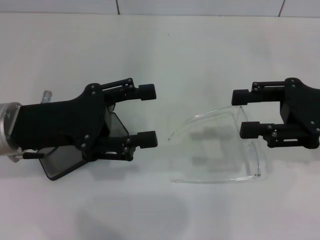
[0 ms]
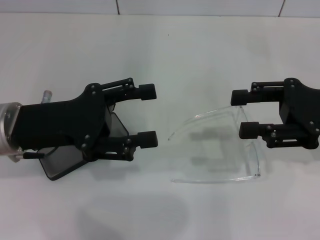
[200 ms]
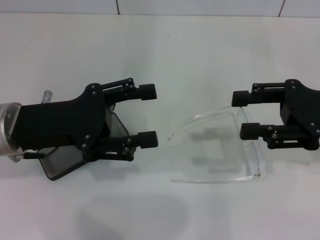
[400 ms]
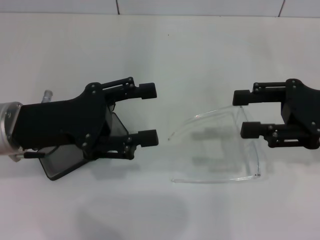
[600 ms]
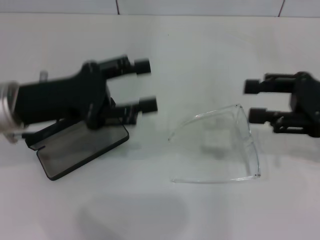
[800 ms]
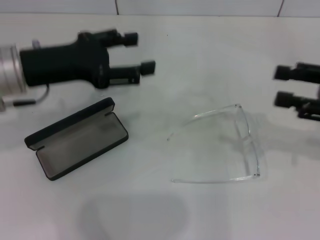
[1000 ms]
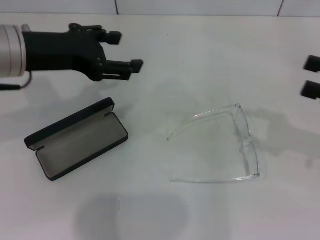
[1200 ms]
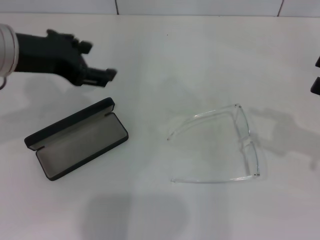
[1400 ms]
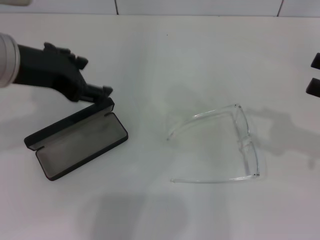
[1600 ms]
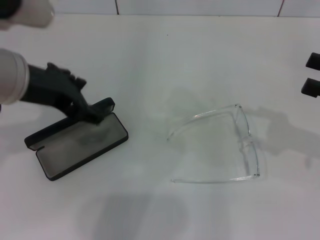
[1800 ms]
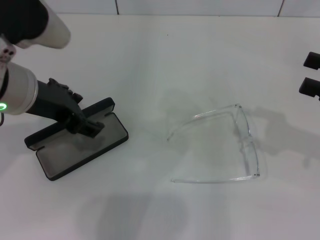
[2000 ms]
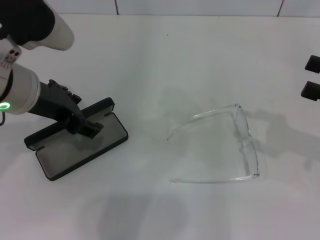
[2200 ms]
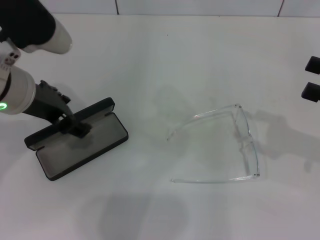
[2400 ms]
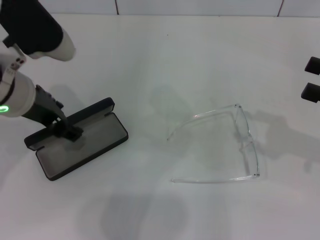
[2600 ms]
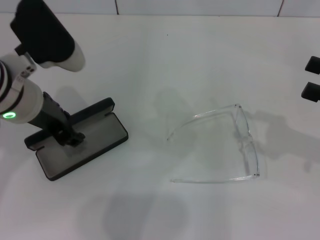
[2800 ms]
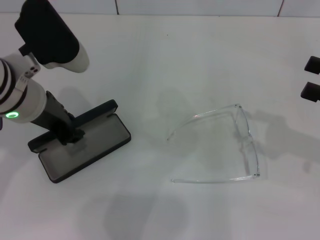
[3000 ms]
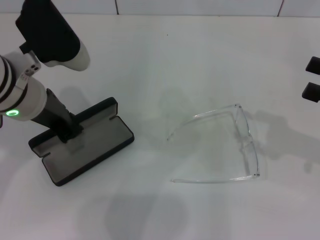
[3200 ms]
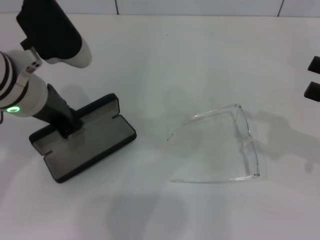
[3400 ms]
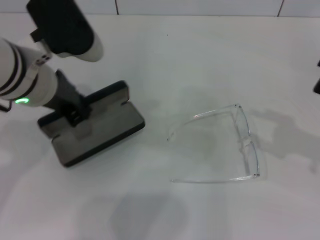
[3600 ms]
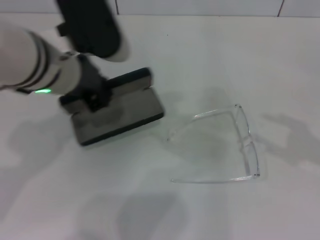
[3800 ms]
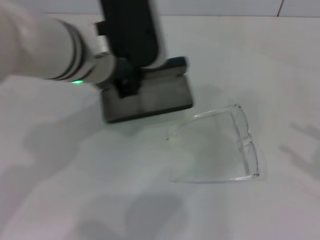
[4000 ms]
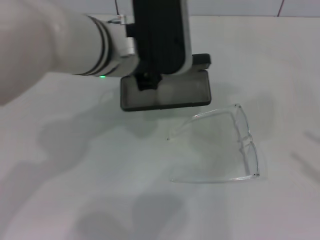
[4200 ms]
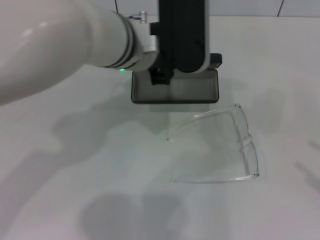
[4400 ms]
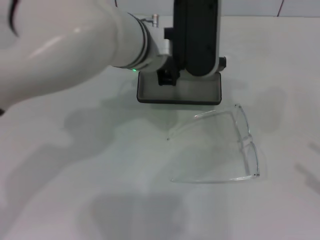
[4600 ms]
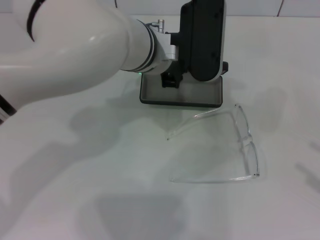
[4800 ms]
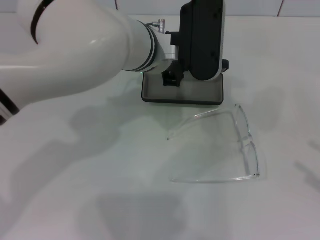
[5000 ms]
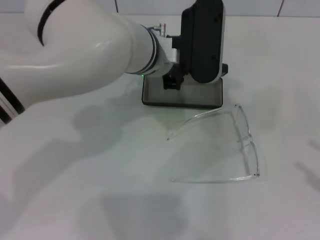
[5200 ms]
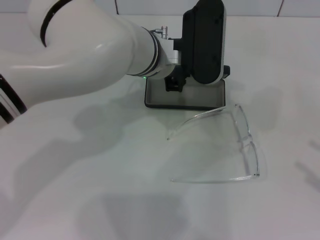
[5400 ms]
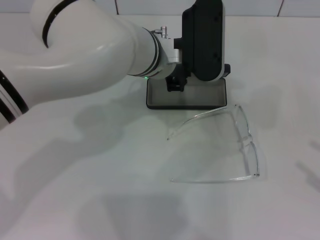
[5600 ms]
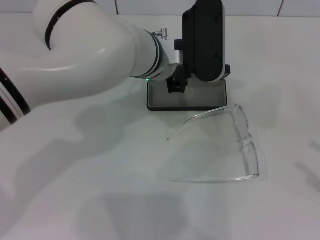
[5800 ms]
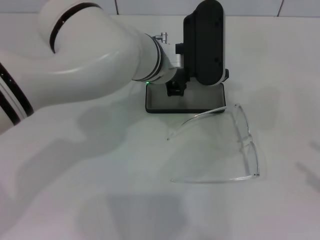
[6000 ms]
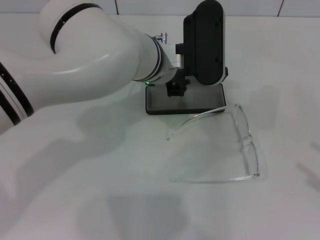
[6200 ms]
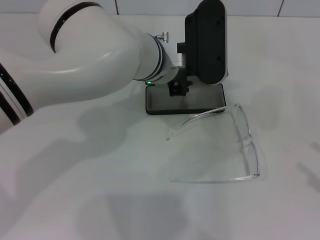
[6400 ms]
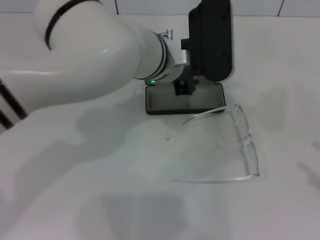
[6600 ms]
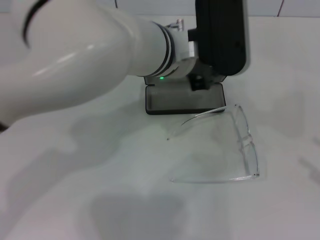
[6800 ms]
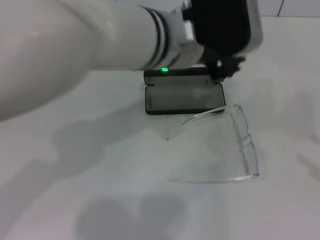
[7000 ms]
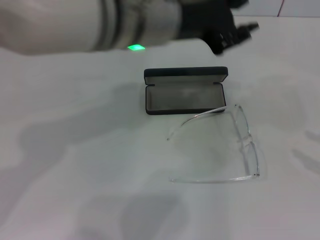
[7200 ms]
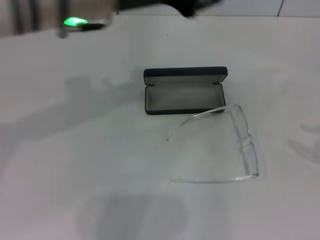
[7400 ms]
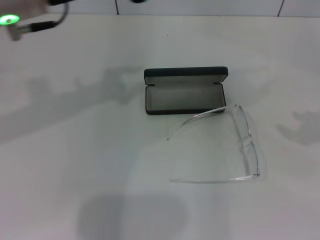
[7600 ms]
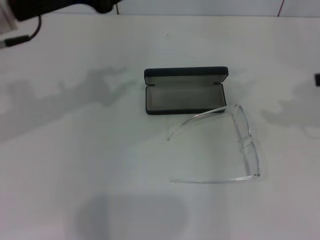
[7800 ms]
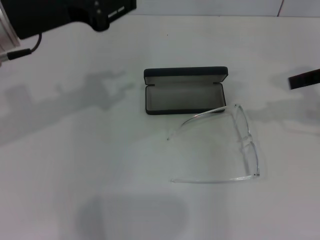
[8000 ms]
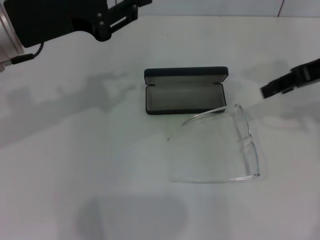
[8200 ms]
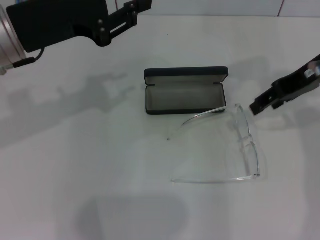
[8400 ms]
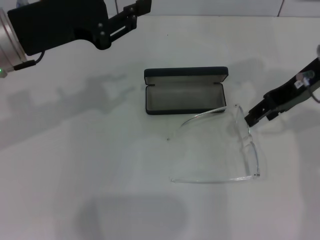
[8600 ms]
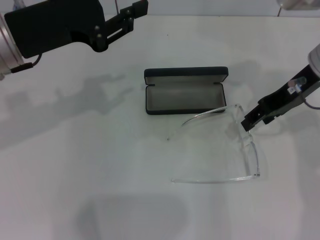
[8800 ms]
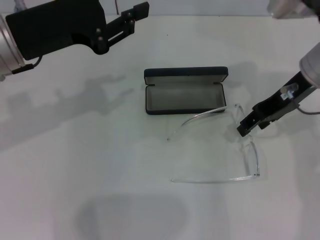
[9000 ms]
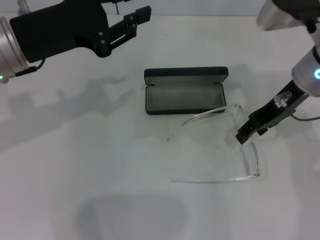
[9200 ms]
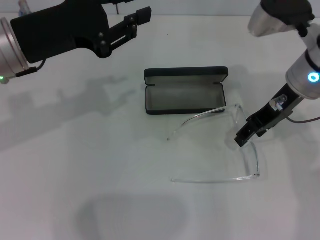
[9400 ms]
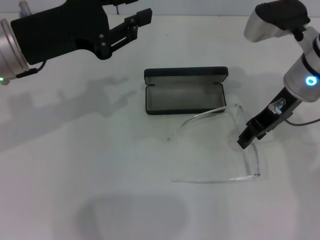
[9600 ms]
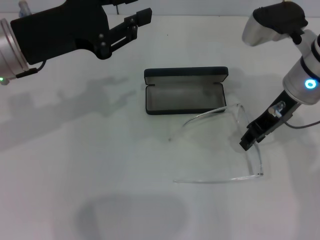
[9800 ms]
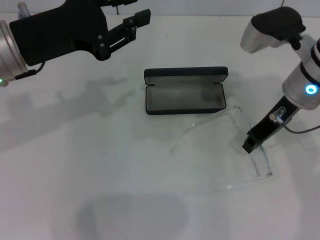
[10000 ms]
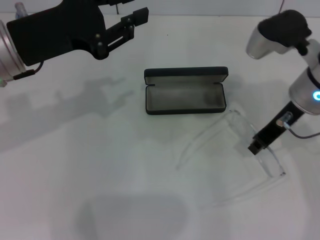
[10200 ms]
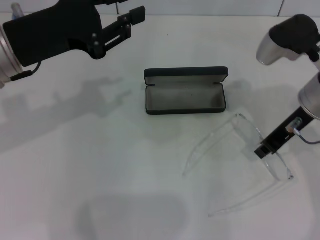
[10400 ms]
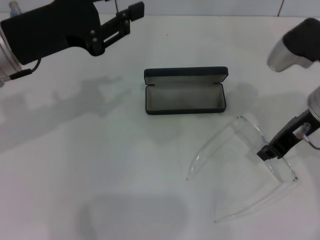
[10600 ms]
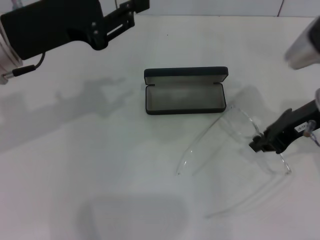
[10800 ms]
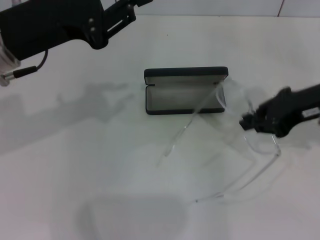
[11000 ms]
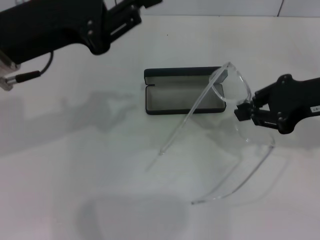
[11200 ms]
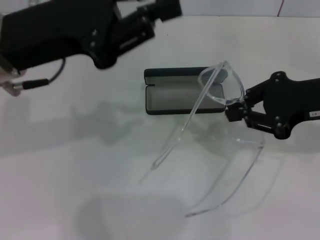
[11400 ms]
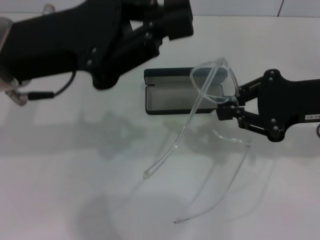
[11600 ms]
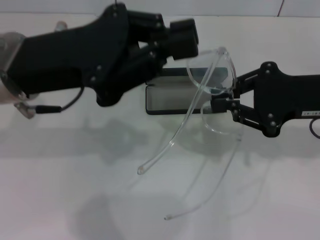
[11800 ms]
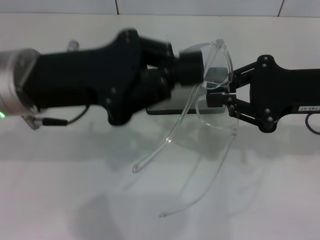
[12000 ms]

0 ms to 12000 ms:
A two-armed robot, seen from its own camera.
Step, 0 ms to 3200 ms: Grab the glasses case with your left hand.
Step, 3400 ms to 6200 ms: Place the glasses case in the center of the table with your left hand.
Step, 6400 ms to 10200 ms: Grab the eyeglass frame with your right hand.
0 ms to 1600 ms: The right gripper is displaced to the right by roughly 10 cm. Meanwhile the left gripper moves upward, some 10 cm.
1600 ms to 3000 ms: The left gripper is displaced downward by roughly 5 cm.
3000 ms to 4400 ms: The left gripper is displaced to the right by approximately 15 cm, and closes; the right gripper moves backward and to the right, about 15 cm.
4400 ms to 6000 ms: The left gripper heads downward, covering about 5 cm.
6000 ms to 7600 ms: The right gripper heads forward and upward, covering about 15 cm. The left gripper travels to the left and upward by some 20 cm.
7600 ms to 9000 ms: The left gripper heads downward, covering about 5 cm. Meanwhile the right gripper goes approximately 20 cm to the left and forward.
9000 ms to 10400 ms: The right gripper closes its fingers.
10400 ms to 12000 ms: The right gripper moves backward, roughly 5 cm, while the left gripper changes place by about 5 cm.

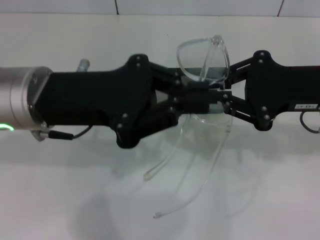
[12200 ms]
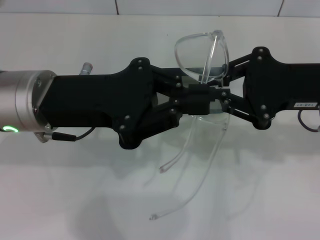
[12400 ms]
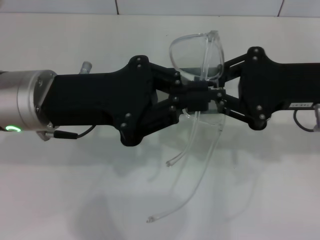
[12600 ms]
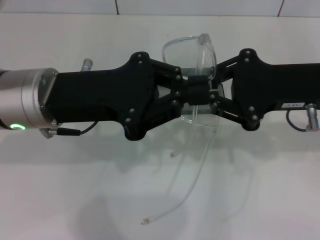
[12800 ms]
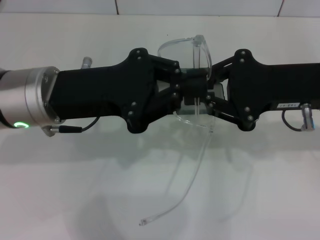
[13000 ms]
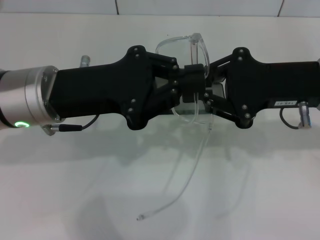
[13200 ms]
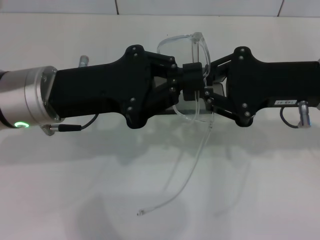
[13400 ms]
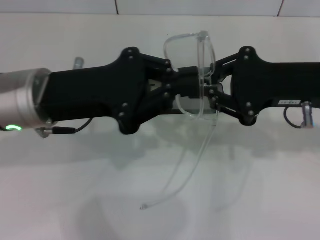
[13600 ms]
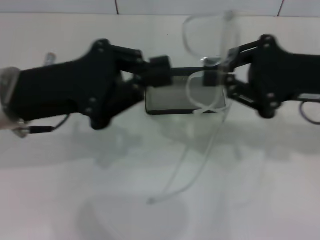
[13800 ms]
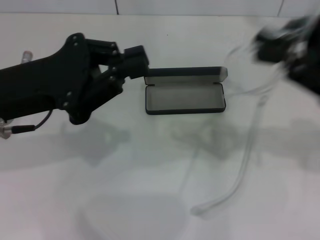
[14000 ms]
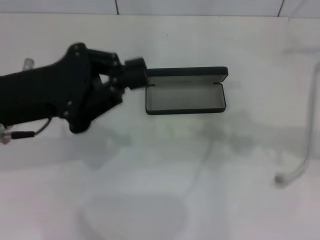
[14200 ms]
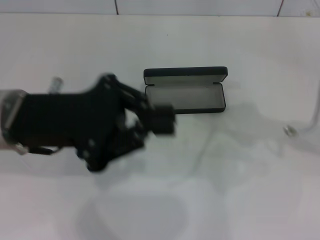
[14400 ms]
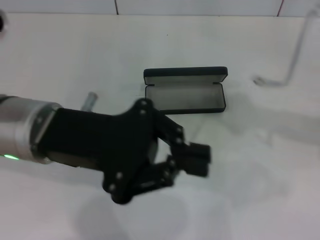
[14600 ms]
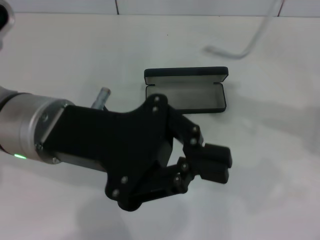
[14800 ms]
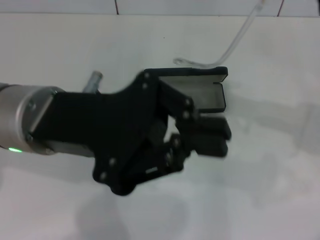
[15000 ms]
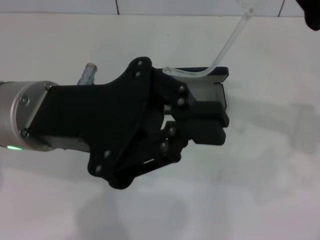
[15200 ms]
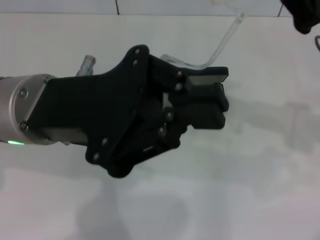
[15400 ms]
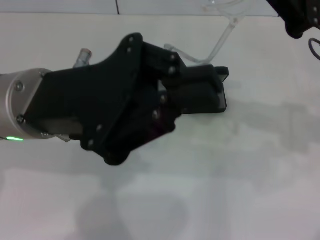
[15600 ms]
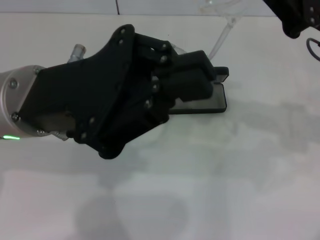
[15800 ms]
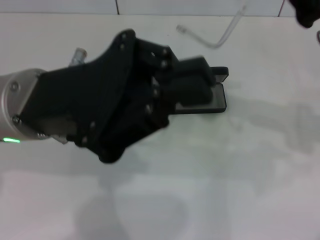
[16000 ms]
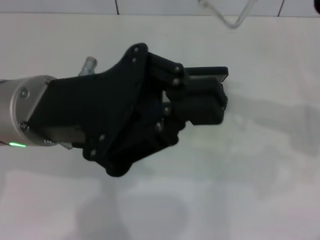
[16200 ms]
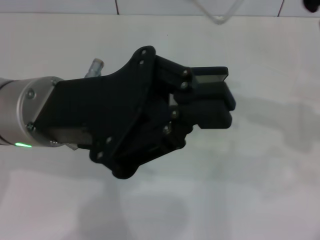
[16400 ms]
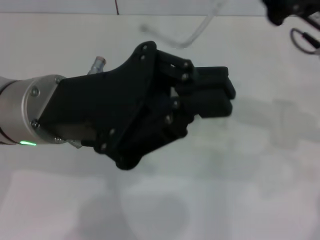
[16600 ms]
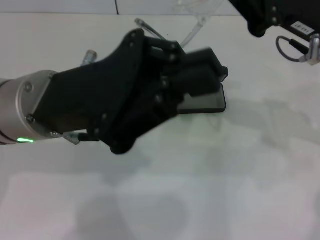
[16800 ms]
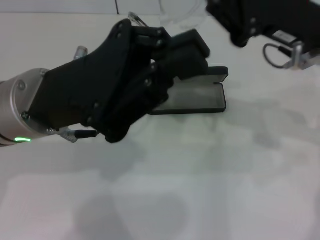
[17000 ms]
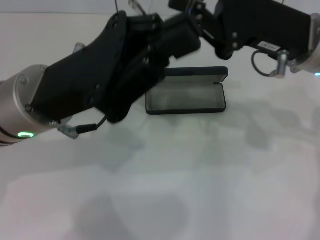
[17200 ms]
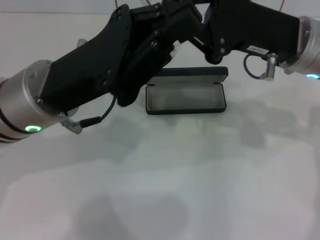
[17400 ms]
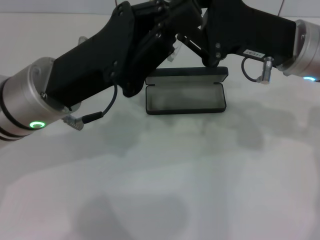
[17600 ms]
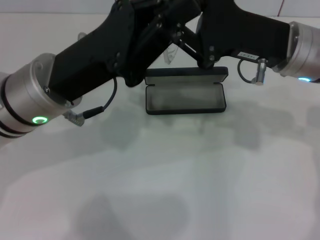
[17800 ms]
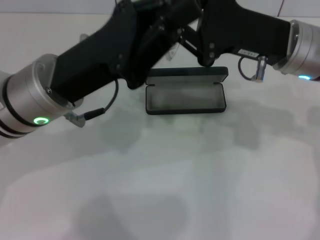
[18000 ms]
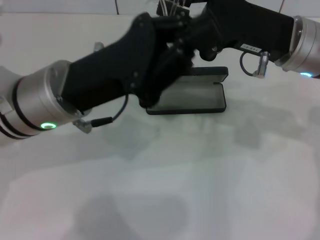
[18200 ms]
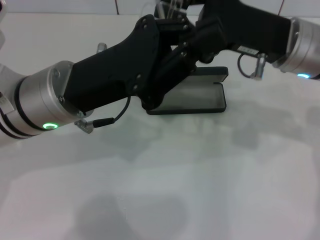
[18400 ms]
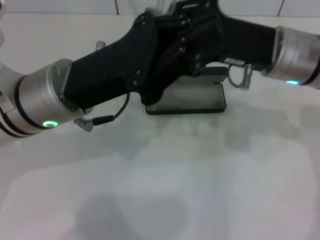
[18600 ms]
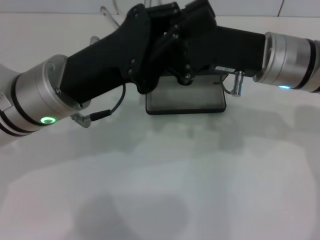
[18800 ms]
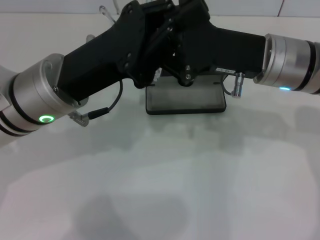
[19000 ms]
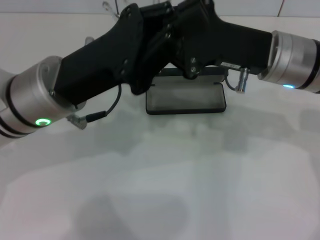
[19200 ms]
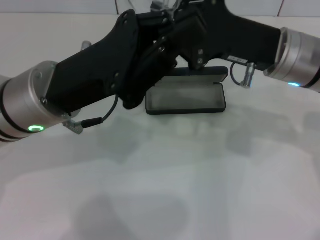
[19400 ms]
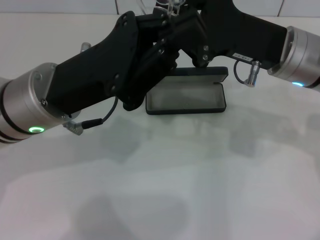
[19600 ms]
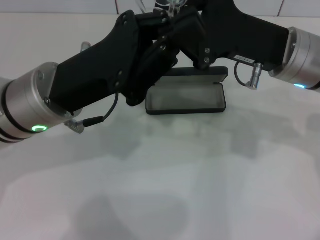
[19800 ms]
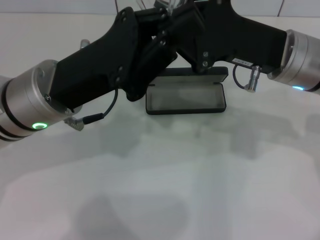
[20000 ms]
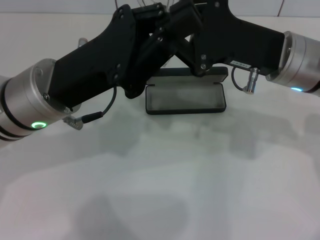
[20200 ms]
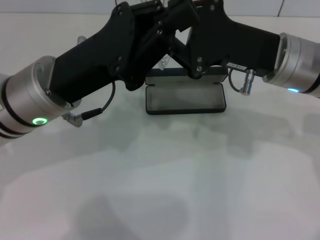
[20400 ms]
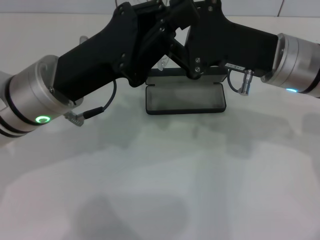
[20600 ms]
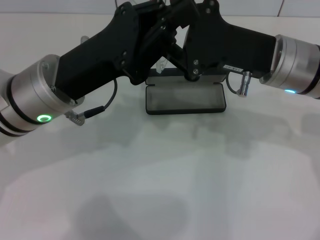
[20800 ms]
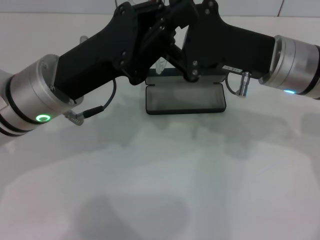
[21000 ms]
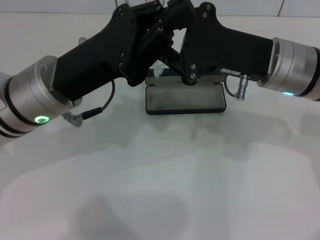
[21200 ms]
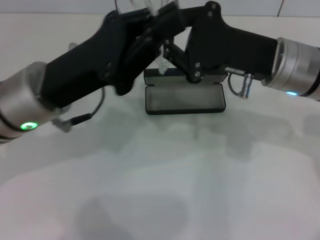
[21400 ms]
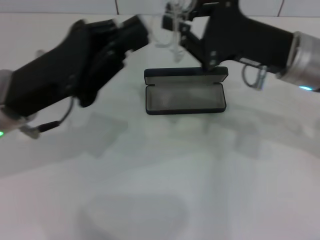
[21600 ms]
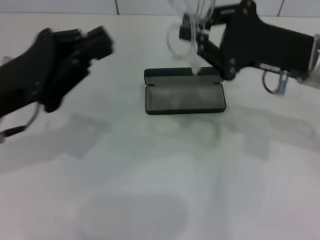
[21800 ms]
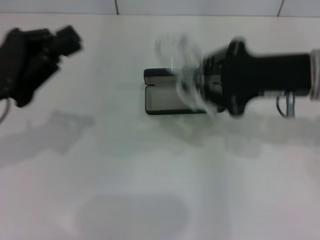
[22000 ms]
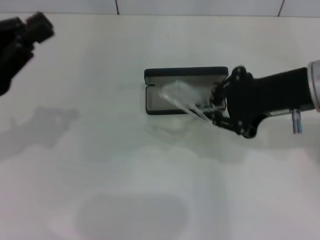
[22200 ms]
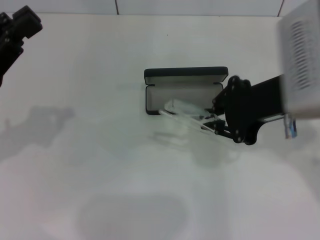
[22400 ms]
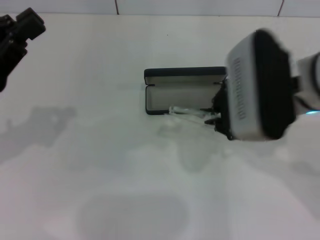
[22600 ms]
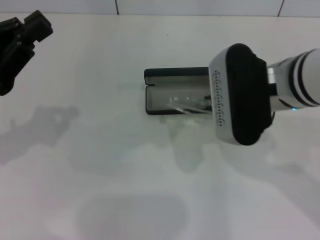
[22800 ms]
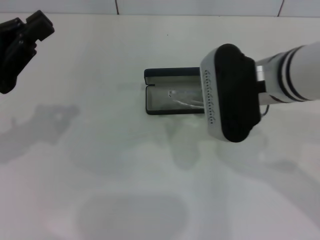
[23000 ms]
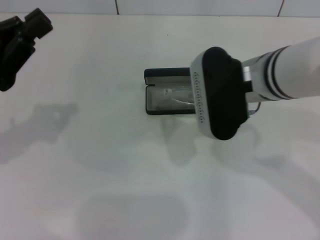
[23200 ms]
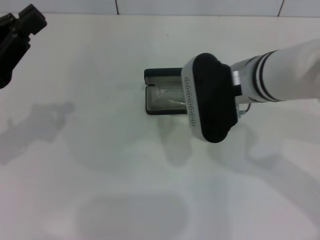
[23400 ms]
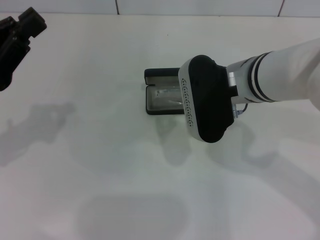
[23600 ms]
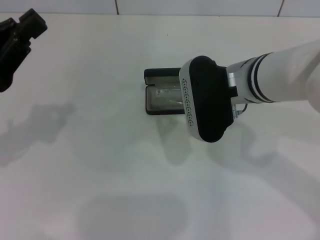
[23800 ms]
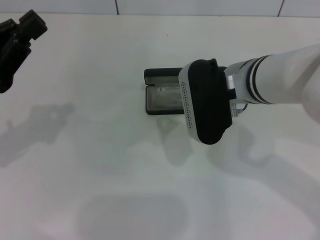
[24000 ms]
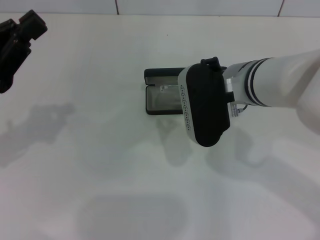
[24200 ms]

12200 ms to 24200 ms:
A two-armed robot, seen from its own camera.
Step, 12200 ms to 21200 ms: Lift the glasses with your right hand.
12200 ms to 13800 ms: The grippers make only small movements.
13800 ms to 15200 ms: The left gripper moves to the right, approximately 5 cm.
15200 ms to 16600 ms: The grippers make only small movements.
18200 ms to 21200 ms: The grippers move only a little.
21200 ms to 22600 ms: The right gripper shifts by about 5 cm. The left gripper is displaced to the left by some 15 cm.
22600 ms to 24200 ms: The right gripper is displaced downward by some 5 cm.
